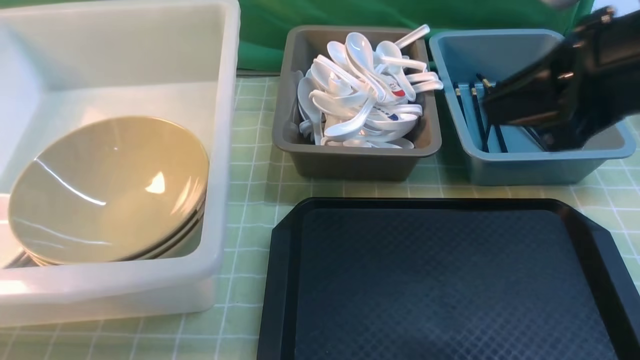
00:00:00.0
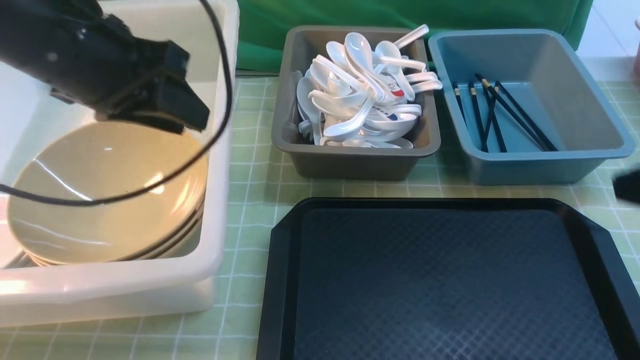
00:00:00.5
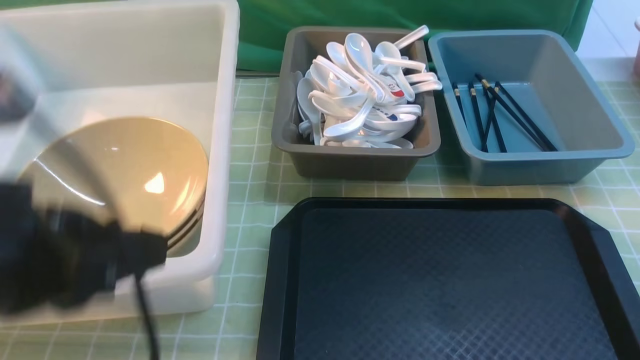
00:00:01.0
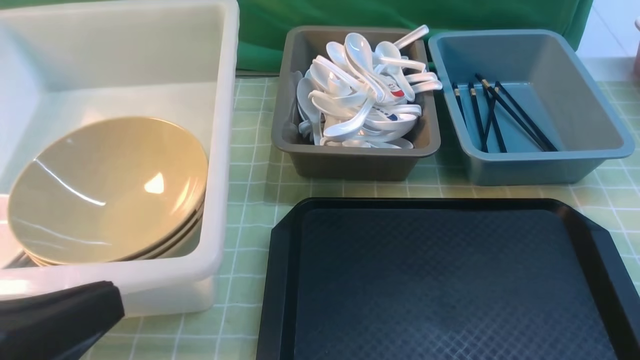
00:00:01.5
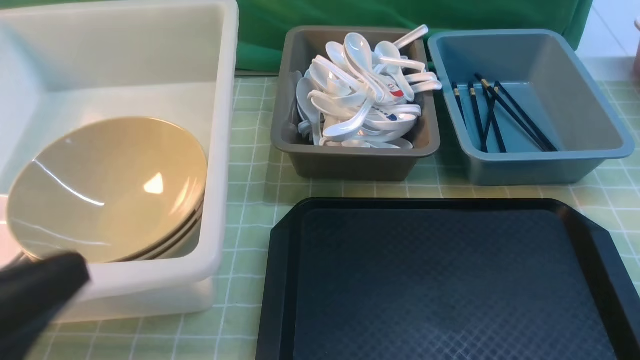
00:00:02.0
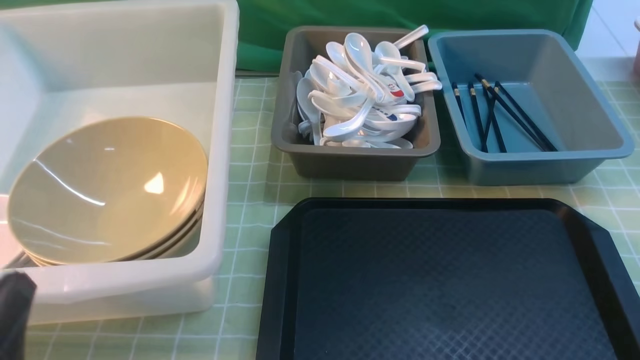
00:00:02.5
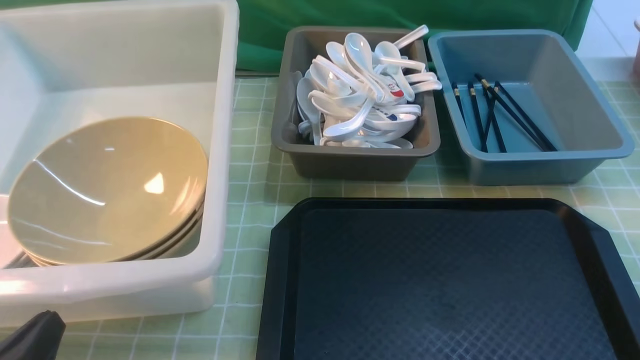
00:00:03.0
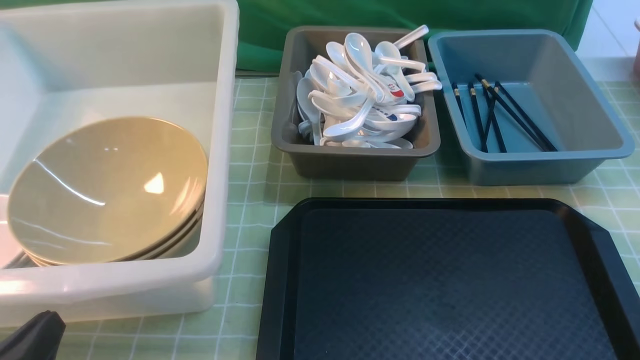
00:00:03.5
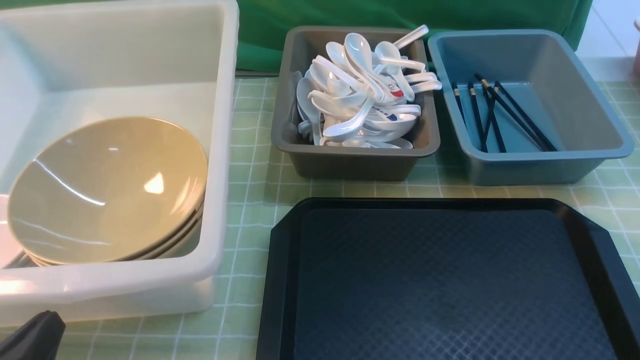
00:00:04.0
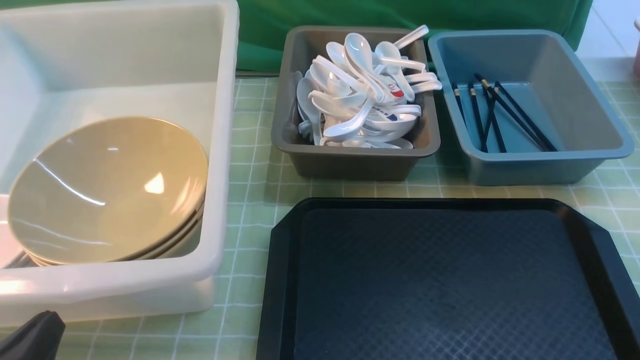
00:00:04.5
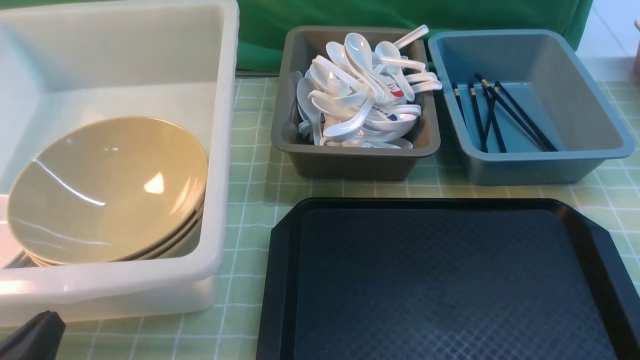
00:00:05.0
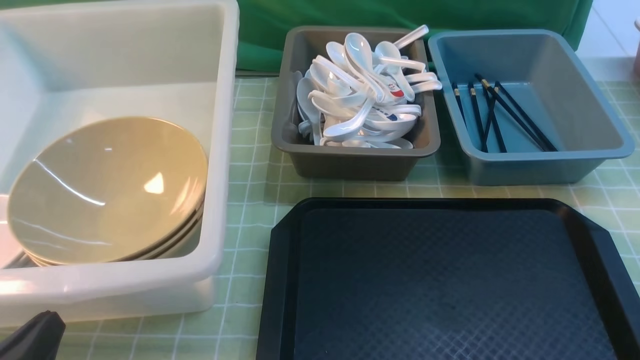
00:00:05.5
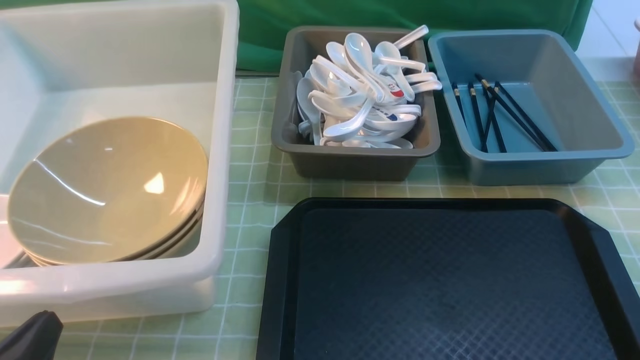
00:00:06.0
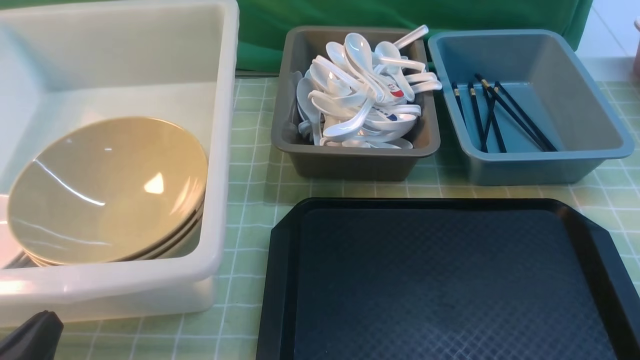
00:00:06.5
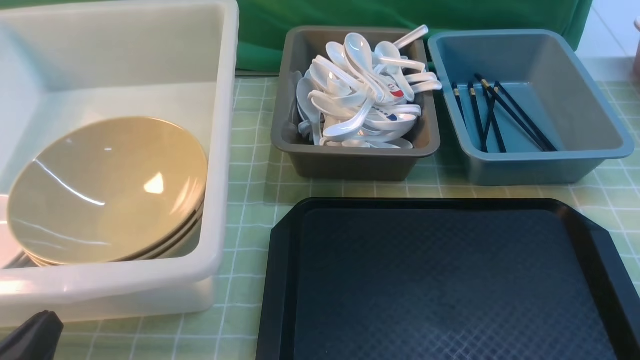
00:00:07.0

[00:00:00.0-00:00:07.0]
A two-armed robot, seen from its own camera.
Task of the whole recording: on green table put chopsticks spoon bowls plates into blue grey white boxes.
00:00:00.0 to 00:00:02.0: The right gripper shifts roughly 25 cm backward and downward; the left gripper shifts about 25 cm backward and to the right, and closes its fingers.
00:00:02.0 to 00:00:03.5: The left gripper moves downward, about 15 cm.
00:00:05.0 to 00:00:07.0: Neither gripper changes place.
